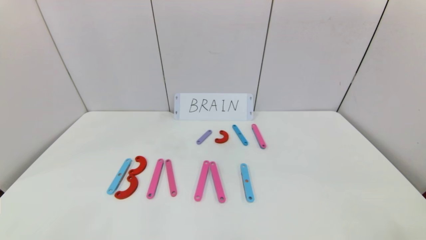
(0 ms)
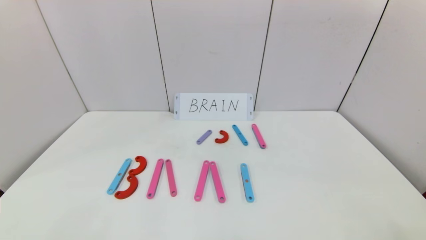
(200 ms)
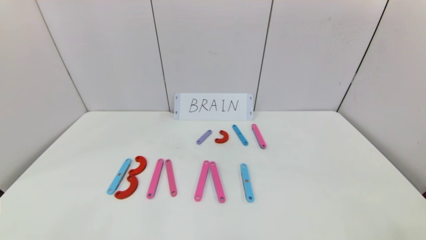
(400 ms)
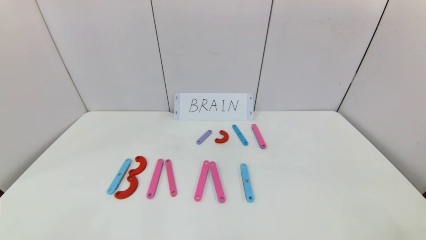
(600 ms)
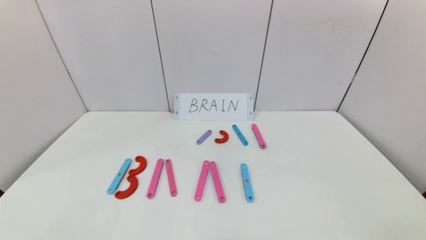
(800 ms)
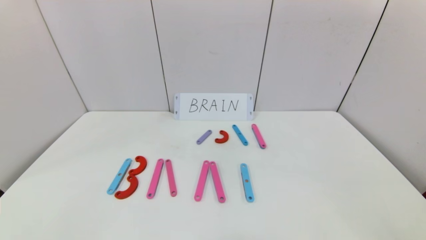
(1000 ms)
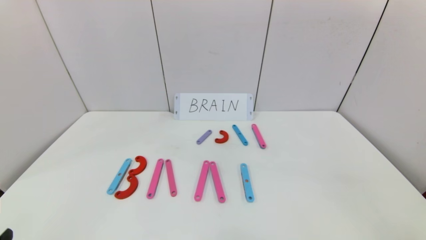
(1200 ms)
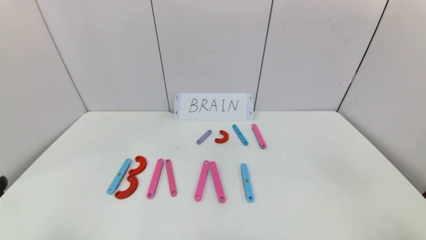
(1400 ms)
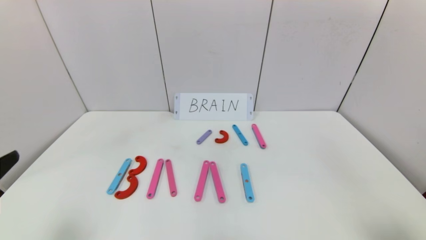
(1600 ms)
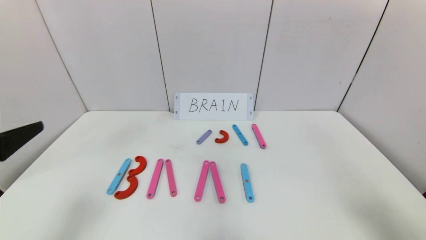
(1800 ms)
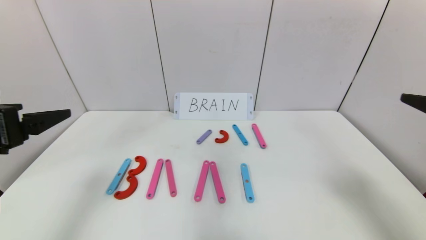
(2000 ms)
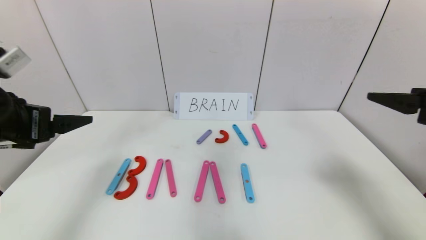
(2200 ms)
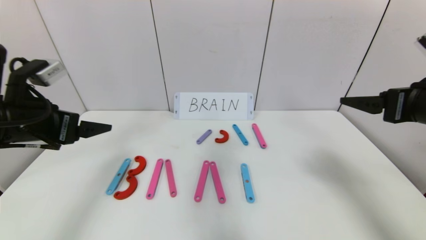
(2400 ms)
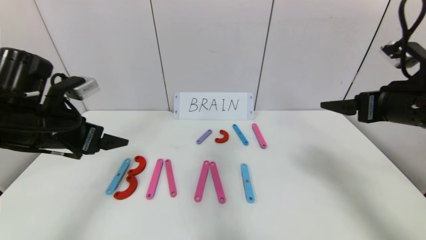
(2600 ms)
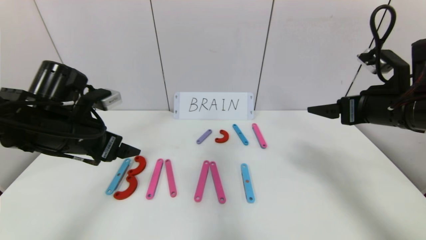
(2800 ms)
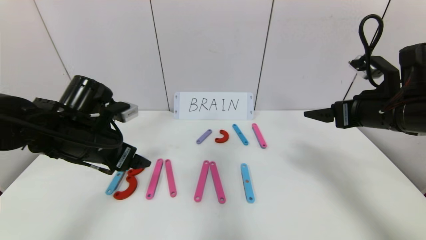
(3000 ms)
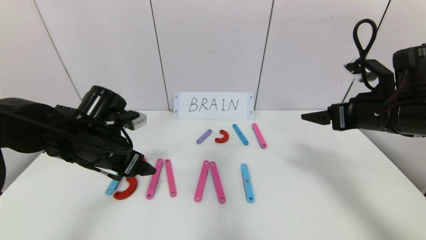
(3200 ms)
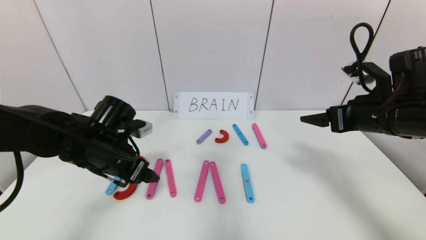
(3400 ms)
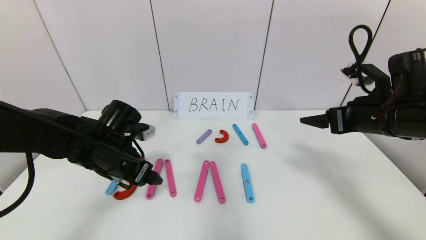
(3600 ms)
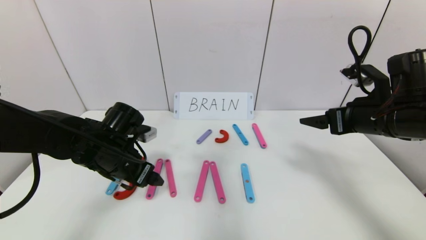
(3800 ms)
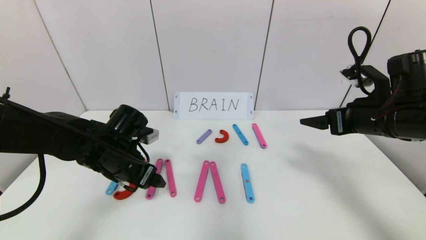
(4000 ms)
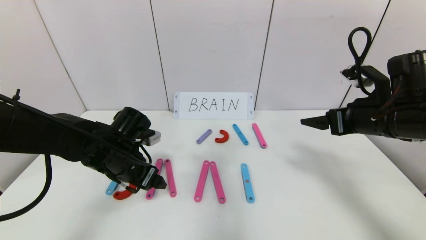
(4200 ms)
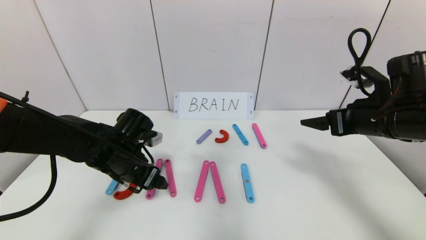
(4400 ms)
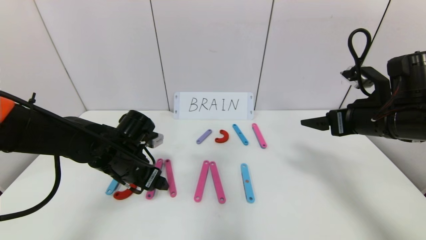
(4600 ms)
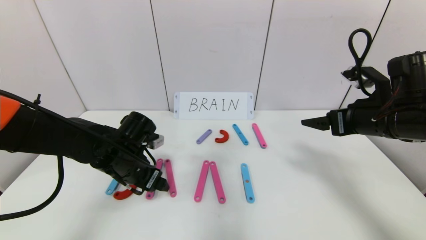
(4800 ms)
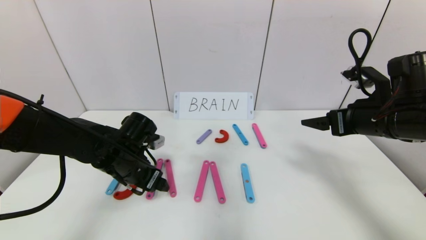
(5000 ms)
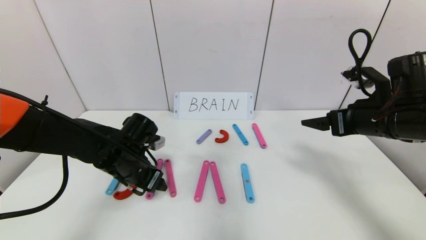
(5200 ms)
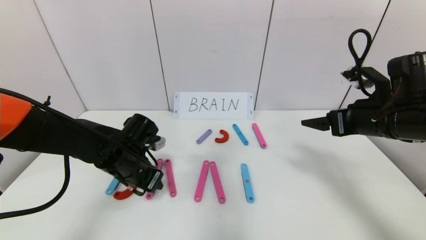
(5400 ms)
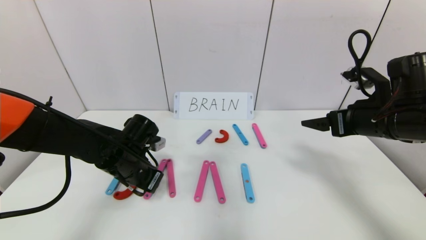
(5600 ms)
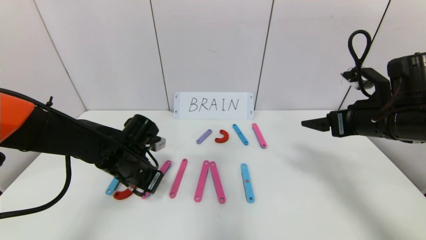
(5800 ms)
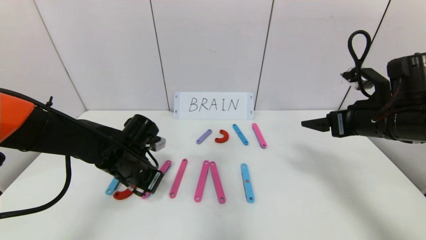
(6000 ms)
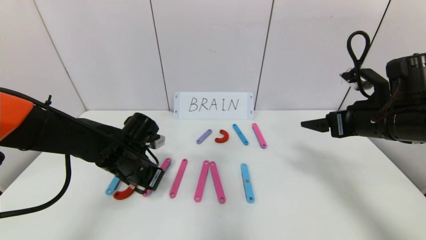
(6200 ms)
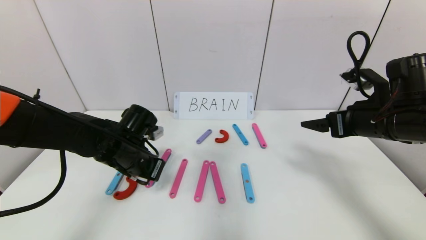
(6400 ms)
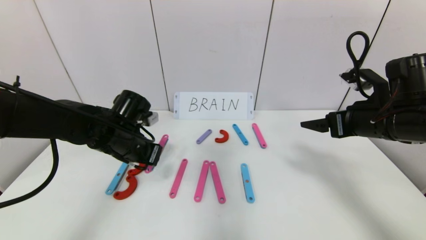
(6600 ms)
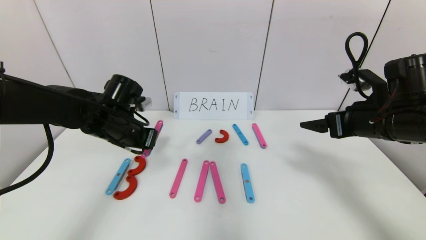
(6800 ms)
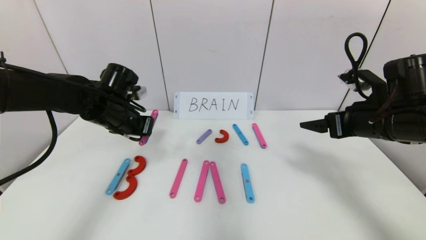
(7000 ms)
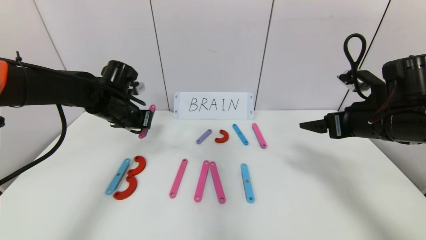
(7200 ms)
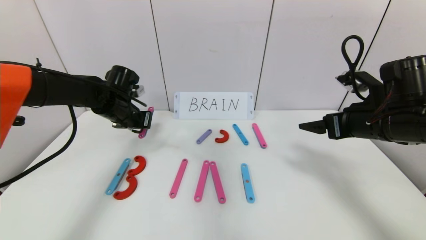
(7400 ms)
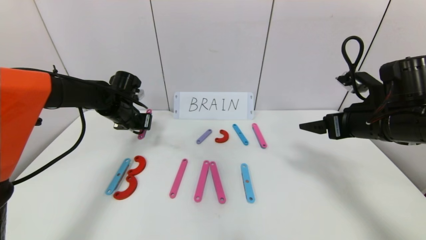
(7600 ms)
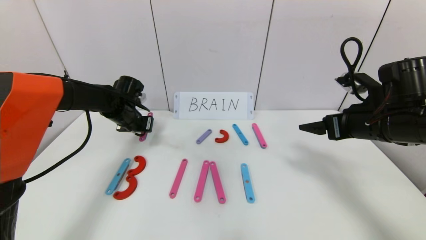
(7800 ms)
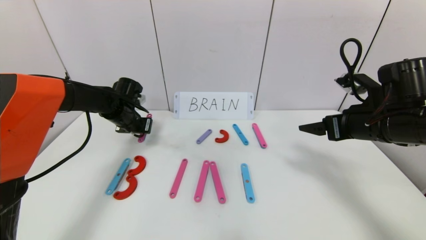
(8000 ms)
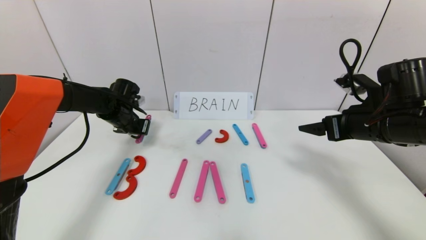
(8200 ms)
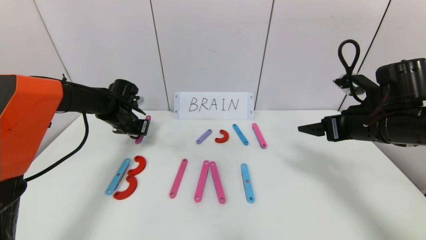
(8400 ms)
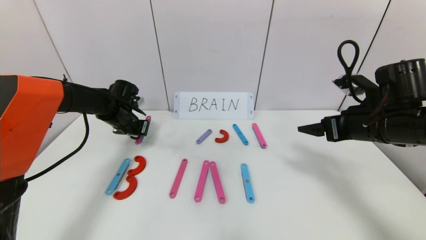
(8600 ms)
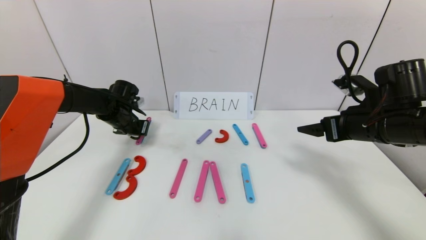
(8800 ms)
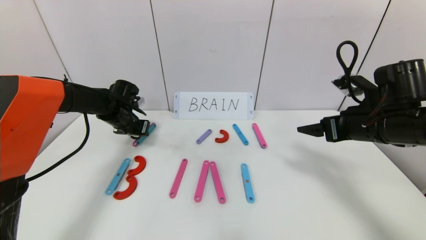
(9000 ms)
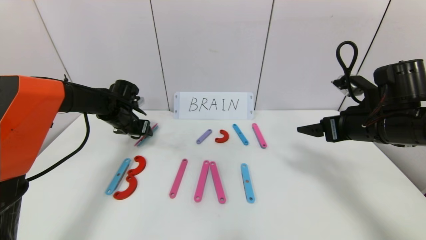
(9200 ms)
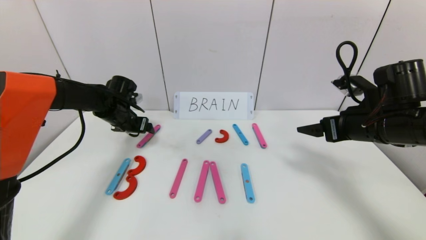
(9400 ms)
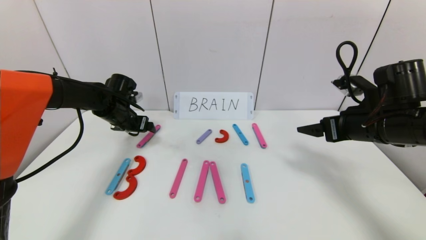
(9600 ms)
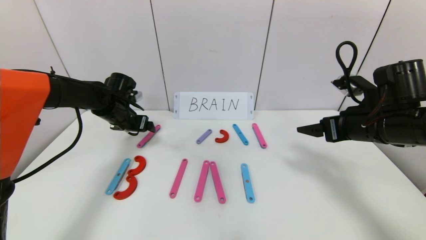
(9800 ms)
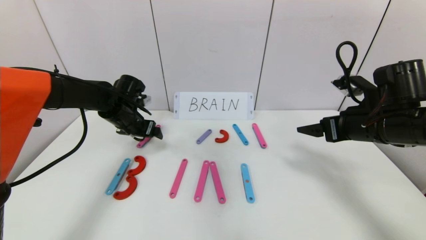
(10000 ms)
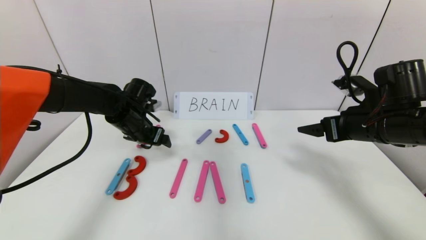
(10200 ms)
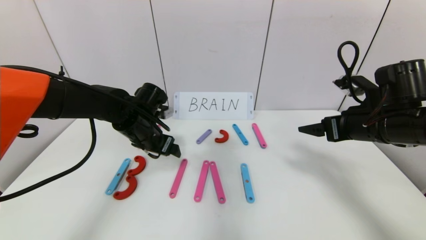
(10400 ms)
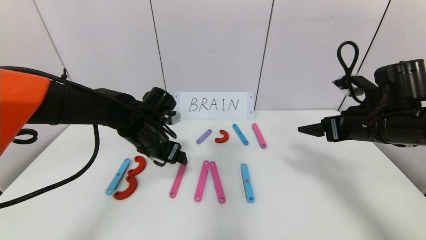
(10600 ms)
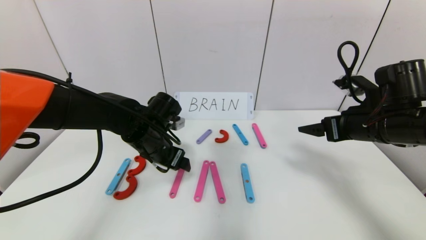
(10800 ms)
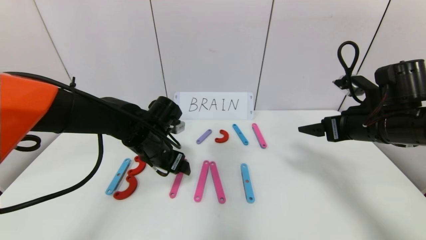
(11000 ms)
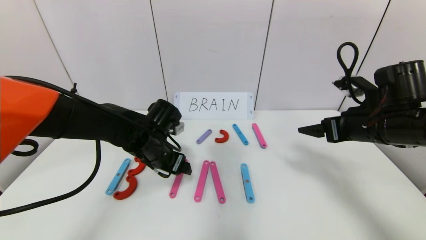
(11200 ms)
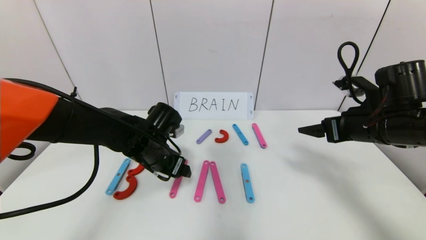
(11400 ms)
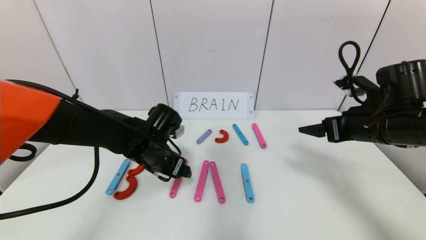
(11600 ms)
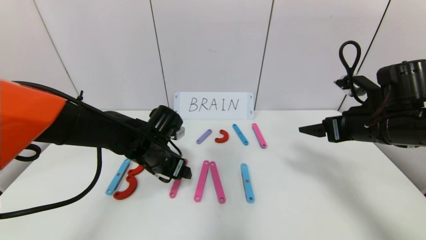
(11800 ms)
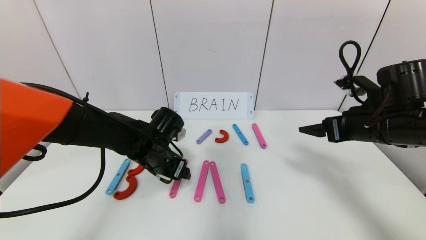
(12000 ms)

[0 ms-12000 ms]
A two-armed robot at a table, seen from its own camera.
Task of the whole recording: rearrange the word baai as brain.
1600 ms to 3000 ms: The left gripper heads forward and to the right, covering roughly 20 cm. Meanwhile the right gripper heads forward, covering some 20 cm.
3000 ms to 4400 ms: The left gripper shifts approximately 5 cm downward.
4400 ms to 6000 ms: The left gripper closes its fingers.
6000 ms to 7600 ms: The left gripper heads forward and to the left, covering approximately 15 cm.
7600 ms to 9000 ms: The left gripper opens up.
9000 ms to 10400 ms: The left gripper is displaced to the right and backward by roughly 15 cm, and opens its fingers.
10400 ms to 12000 ms: The left gripper moves some 5 cm.

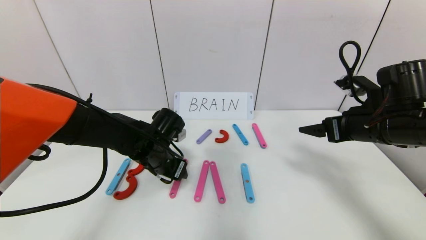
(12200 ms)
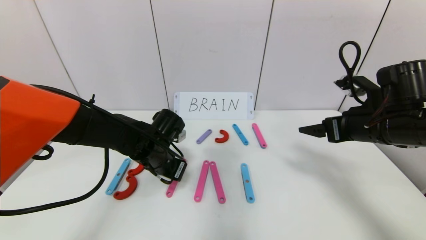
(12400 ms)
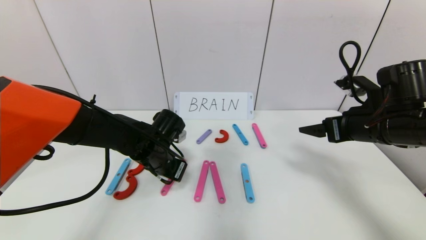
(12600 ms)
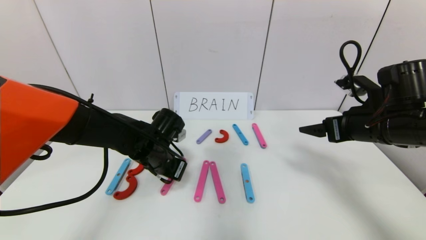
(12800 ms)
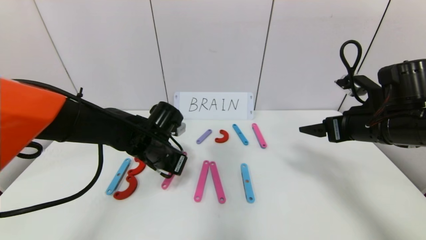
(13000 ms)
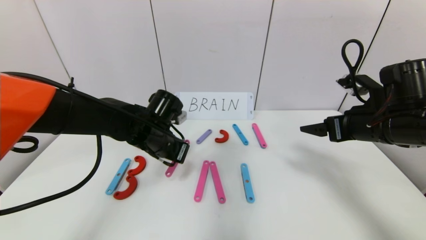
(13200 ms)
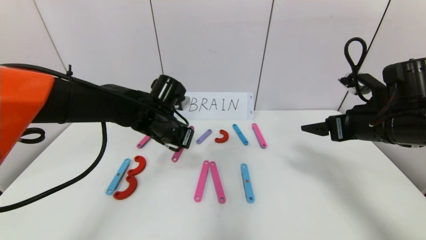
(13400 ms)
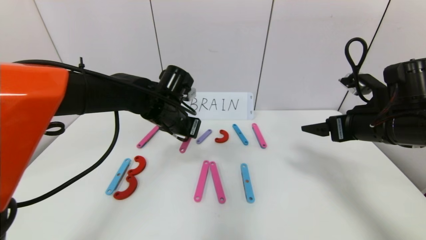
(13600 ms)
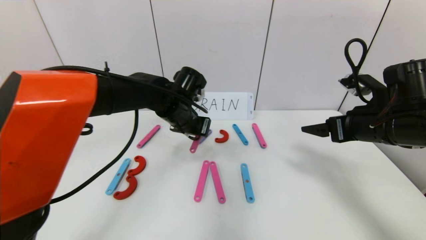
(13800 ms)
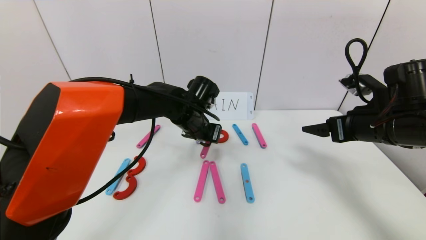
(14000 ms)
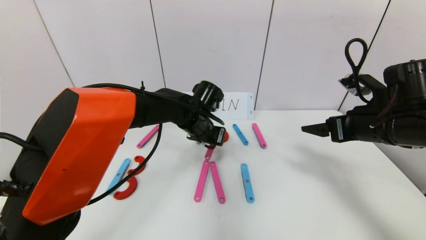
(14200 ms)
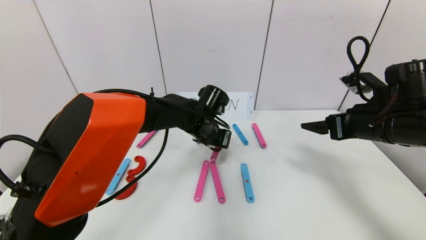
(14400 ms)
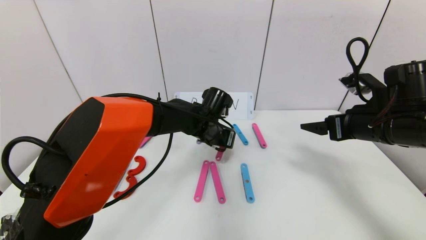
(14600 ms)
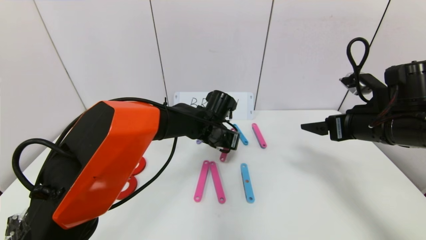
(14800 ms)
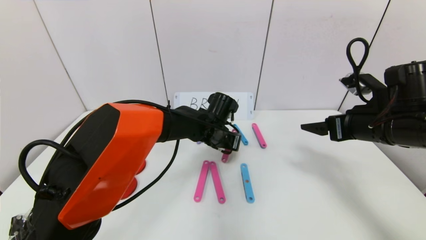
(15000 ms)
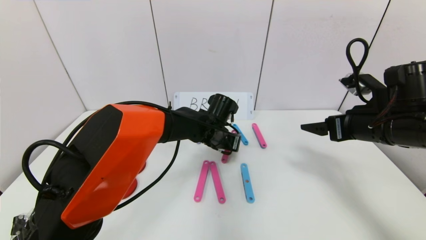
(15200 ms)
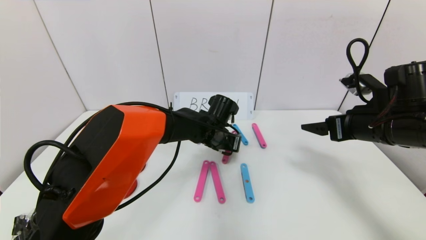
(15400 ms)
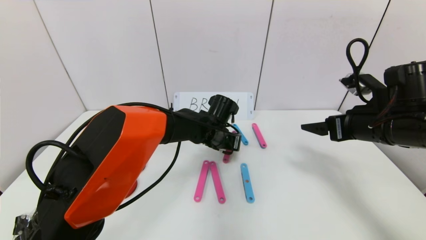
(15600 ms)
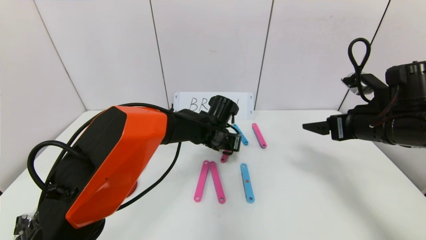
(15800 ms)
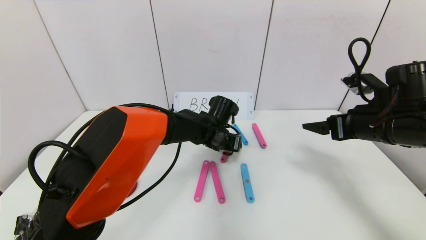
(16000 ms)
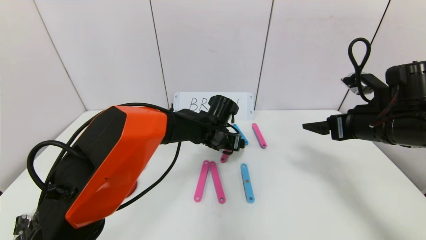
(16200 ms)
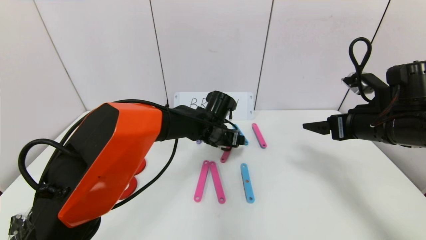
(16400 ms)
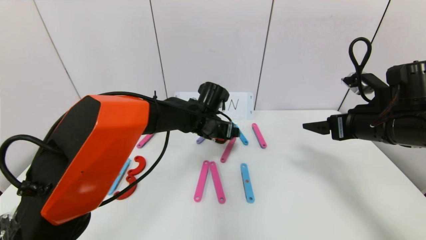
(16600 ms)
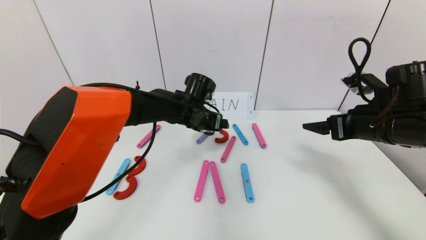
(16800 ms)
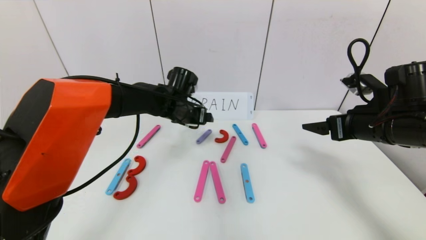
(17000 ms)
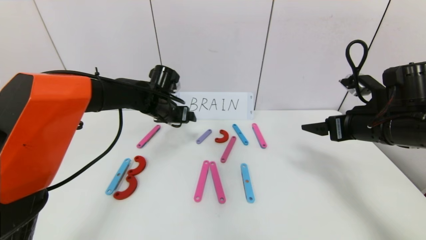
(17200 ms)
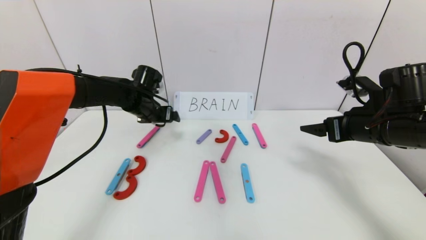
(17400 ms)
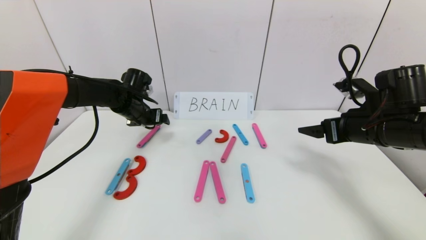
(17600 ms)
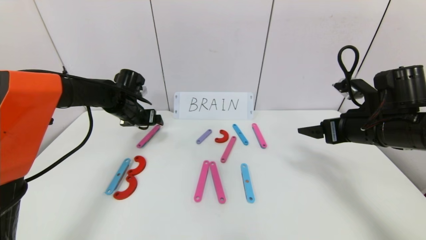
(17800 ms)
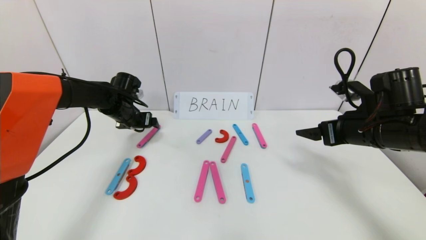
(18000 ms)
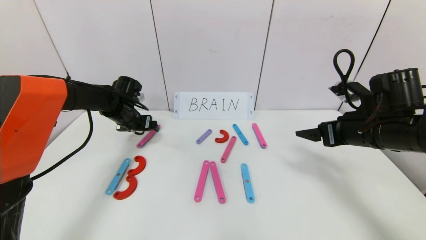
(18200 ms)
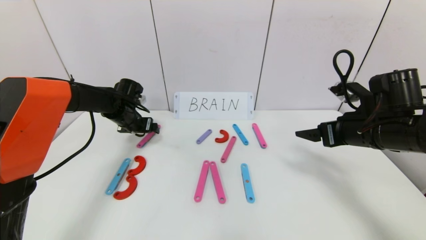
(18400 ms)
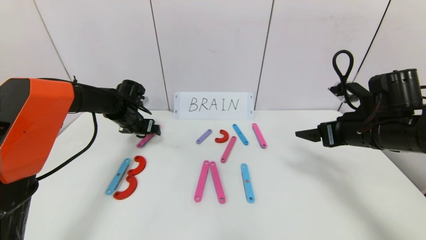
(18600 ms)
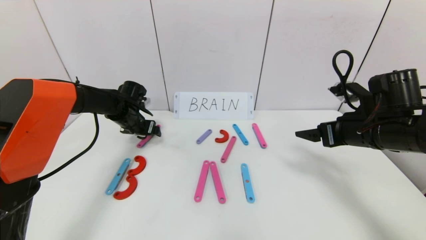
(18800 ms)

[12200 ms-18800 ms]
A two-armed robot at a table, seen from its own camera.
Task of the whole recording: rearrange the word baai as brain.
Step, 12200 ms to 16800 ms: Disassemble the second character A.
12200 ms to 13800 ms: The left gripper travels upward, to the right and forward by roughly 10 cm, and closes.
13800 ms to 15400 ms: The left gripper moves to the right and downward, approximately 10 cm.
15400 ms to 17200 ms: The left gripper shifts some 15 cm to the left, and opens up.
17200 ms to 18800 ms: The left gripper is displaced to the left and downward by approximately 10 cm.
